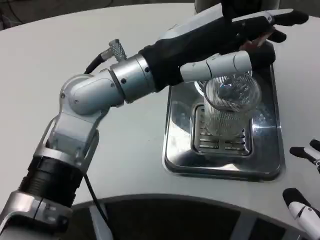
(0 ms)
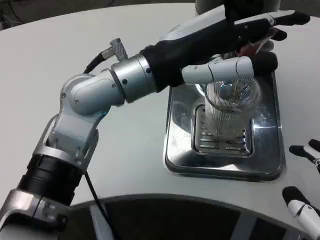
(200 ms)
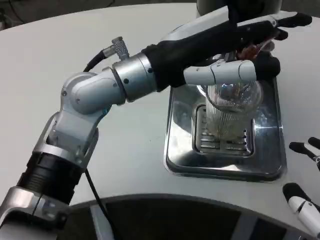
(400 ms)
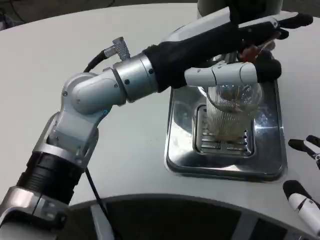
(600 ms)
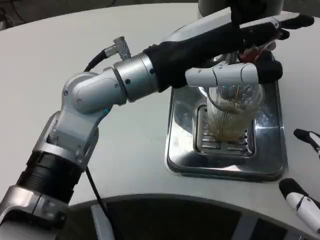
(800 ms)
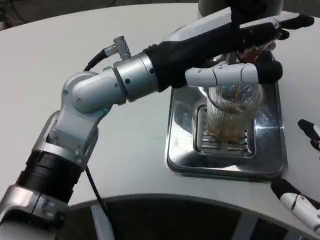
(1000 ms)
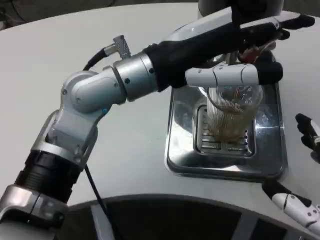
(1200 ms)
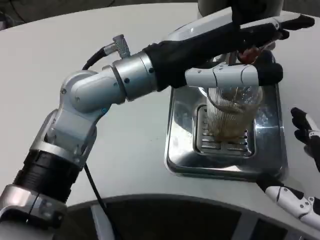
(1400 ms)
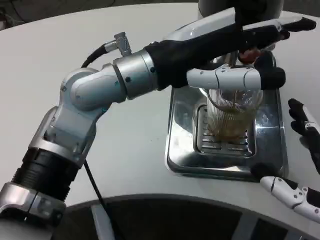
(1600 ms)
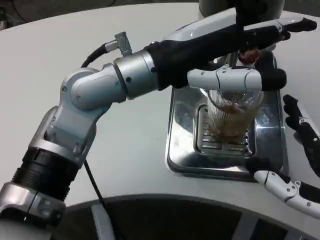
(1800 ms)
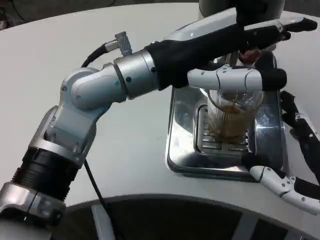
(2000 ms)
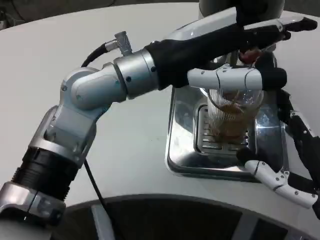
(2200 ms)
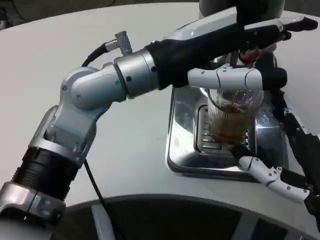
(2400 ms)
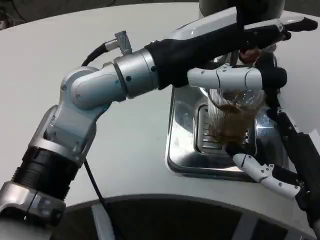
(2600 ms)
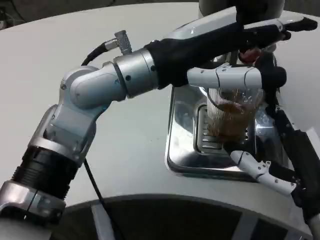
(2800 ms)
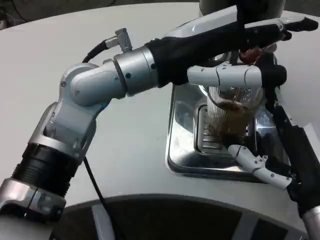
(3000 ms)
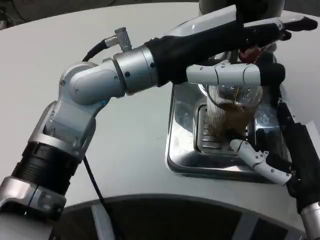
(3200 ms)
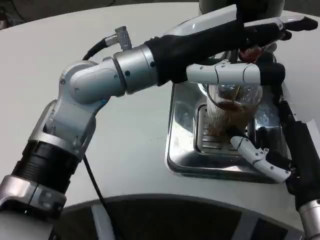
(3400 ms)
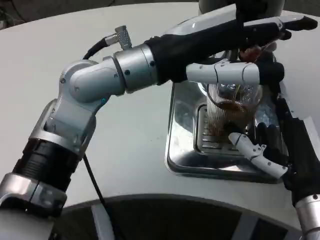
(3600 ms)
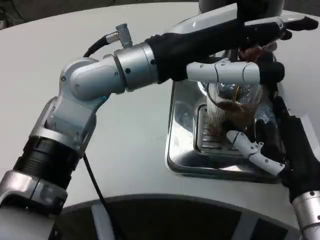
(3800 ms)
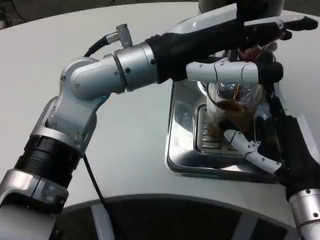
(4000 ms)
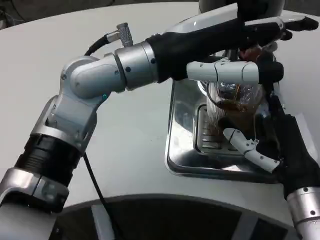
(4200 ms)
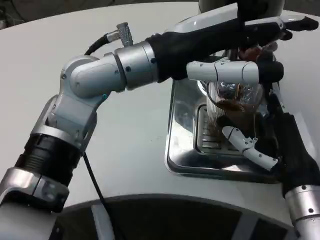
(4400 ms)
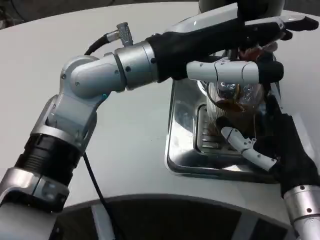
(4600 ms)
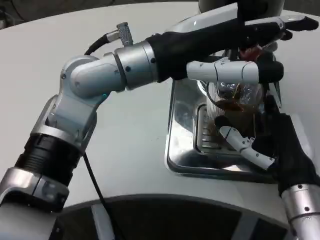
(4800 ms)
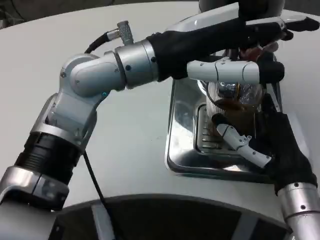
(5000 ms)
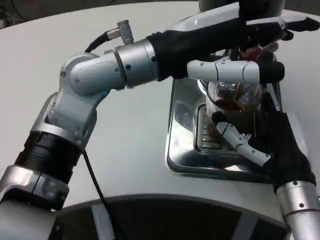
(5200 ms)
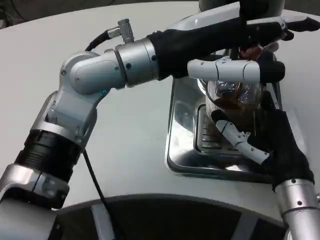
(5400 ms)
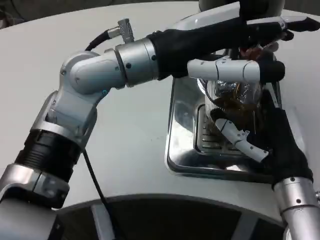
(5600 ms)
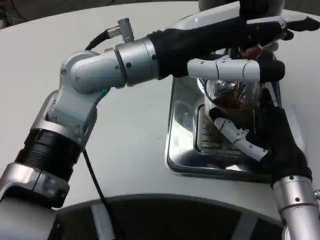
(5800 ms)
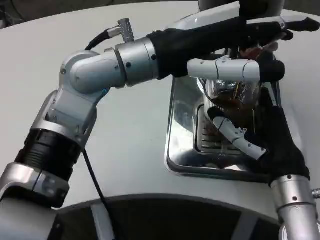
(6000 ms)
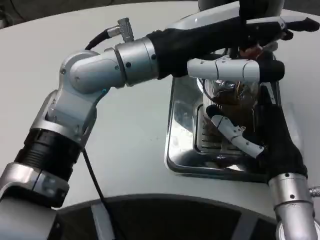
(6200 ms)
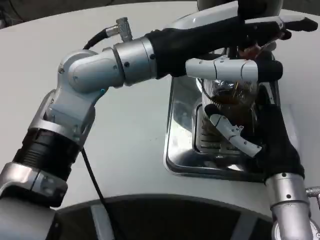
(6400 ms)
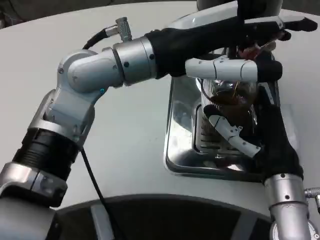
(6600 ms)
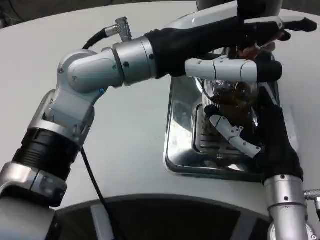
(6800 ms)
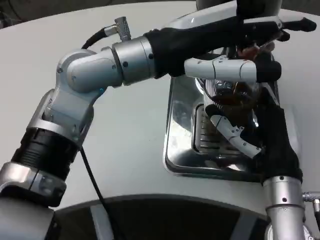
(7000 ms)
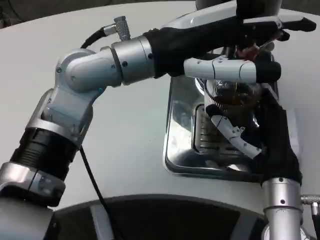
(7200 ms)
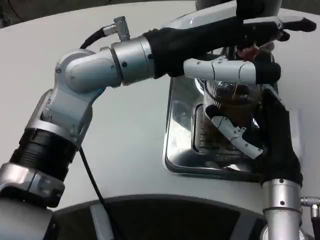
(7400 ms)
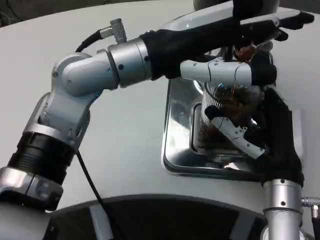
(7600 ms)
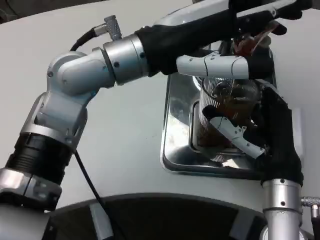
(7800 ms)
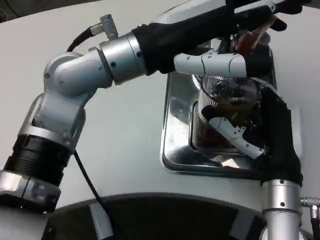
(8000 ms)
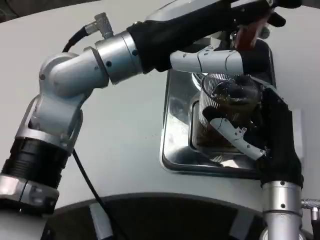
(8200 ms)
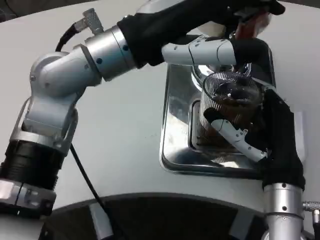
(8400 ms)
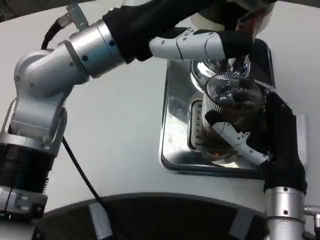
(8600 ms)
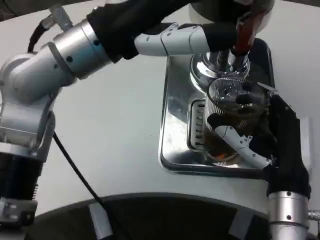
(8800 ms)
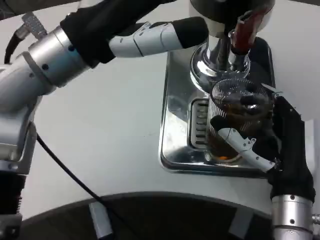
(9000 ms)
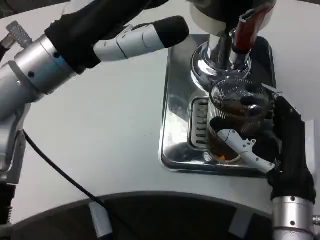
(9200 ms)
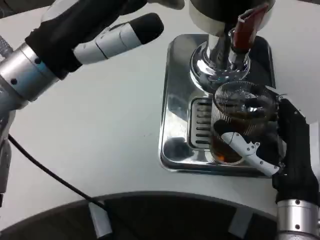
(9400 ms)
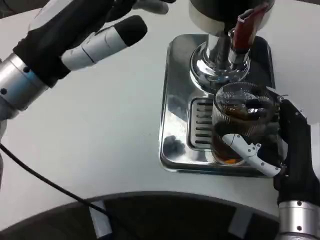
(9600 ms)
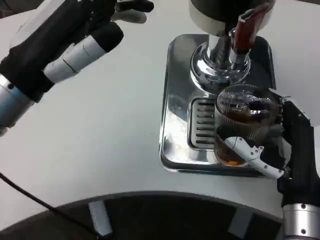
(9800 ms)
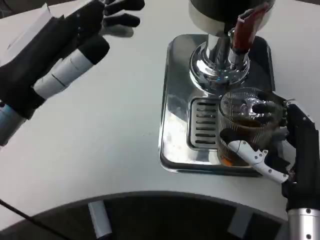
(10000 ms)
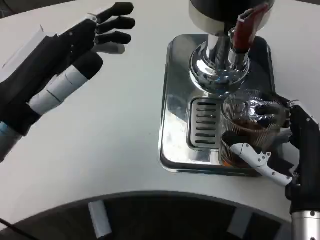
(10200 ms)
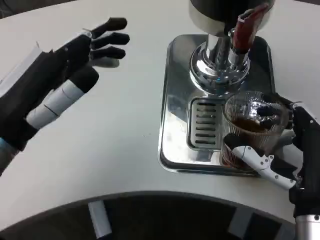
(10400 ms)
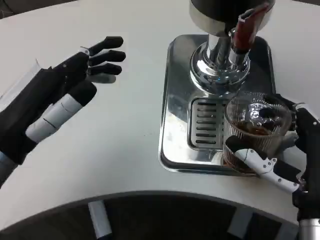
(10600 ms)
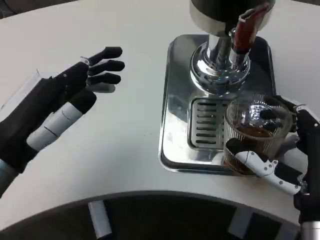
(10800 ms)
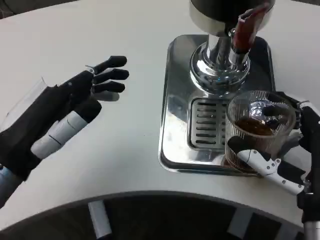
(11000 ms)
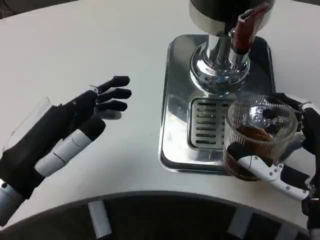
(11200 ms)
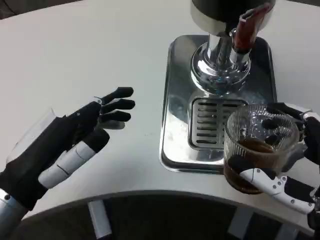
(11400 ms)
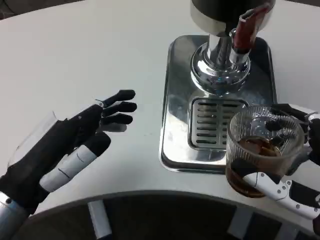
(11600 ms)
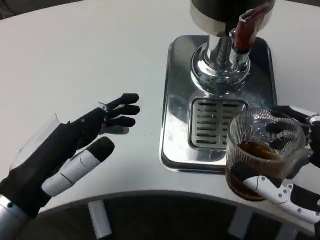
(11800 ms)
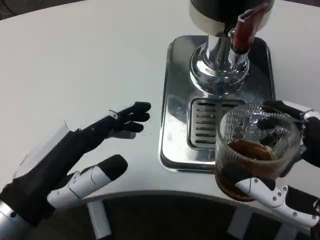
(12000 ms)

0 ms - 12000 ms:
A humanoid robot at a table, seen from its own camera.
Task of the whole recording: Grasp the cup under the faucet to collect the drink, then remove the cup.
0 ms - 1600 ms: The right hand travels forward by some 5 cm.
1600 ms - 3000 ms: The right hand is displaced forward by roughly 5 cm.
4400 ms - 6000 ms: The hands make only small movements.
7600 ms - 9000 ms: The left hand shifts some 5 cm to the left.
9000 ms - 10400 ms: The left hand goes about 15 cm downward, to the left and backward.
10400 ms - 12000 ms: The left hand moves downward and backward, about 5 cm. The right hand goes about 5 cm backward.

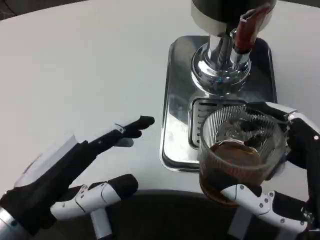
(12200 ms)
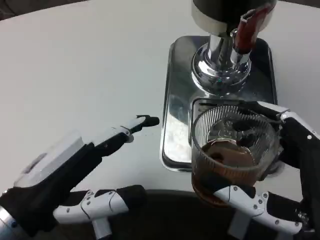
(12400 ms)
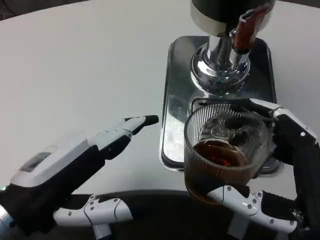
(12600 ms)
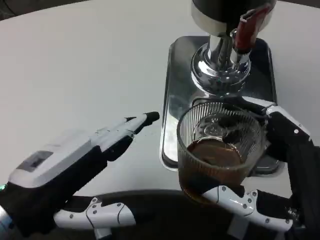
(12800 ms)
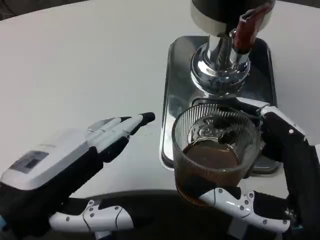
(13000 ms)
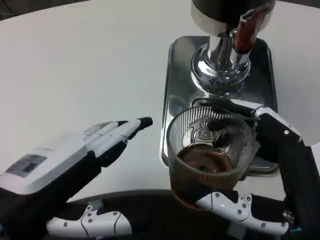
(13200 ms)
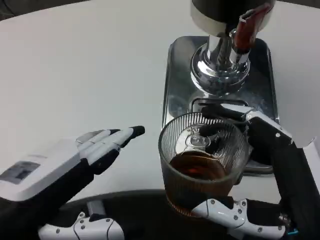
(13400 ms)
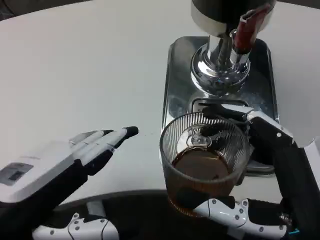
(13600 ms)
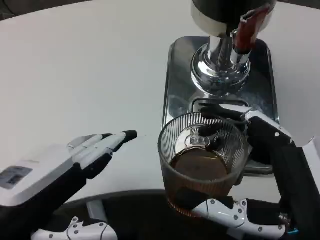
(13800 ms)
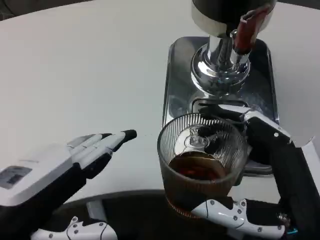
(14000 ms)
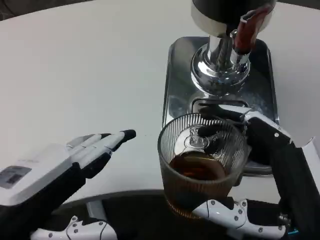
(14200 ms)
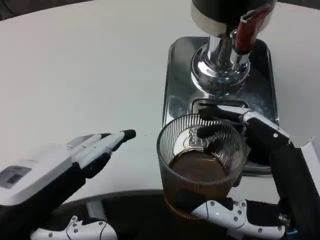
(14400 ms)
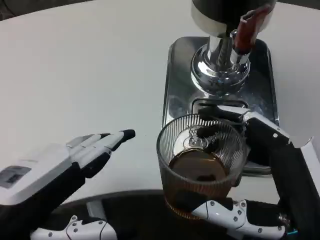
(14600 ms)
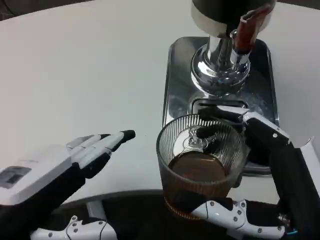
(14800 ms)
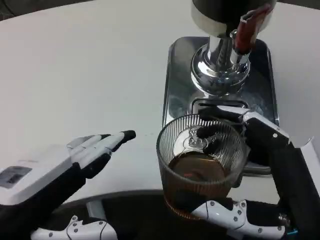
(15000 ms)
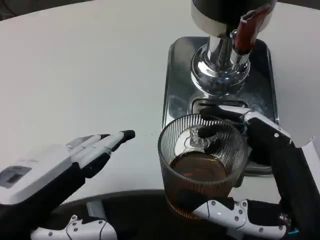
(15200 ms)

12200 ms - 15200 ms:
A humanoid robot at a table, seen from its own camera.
Task of the whole recording: Grasp the cup under the faucet to collect the drink, then remove the cup.
12200 ms - 13800 ms: The left hand ends up roughly 5 cm from where it was.
13800 ms - 15200 ms: Neither hand changes place.

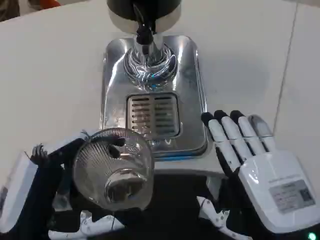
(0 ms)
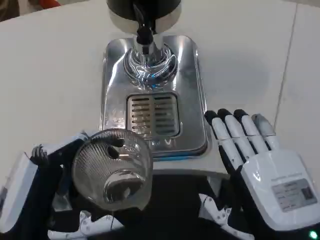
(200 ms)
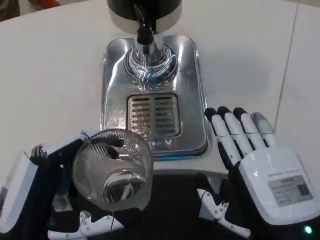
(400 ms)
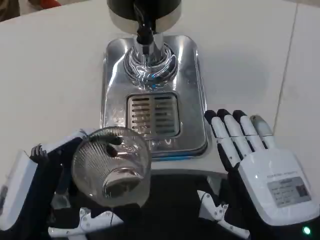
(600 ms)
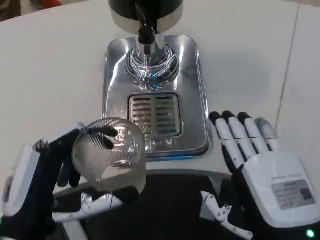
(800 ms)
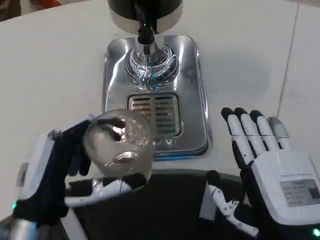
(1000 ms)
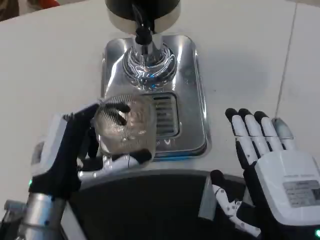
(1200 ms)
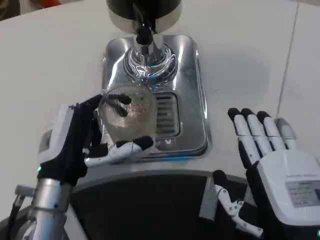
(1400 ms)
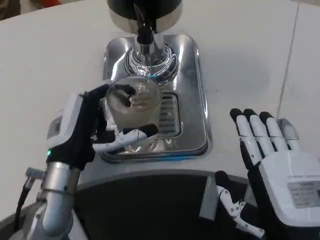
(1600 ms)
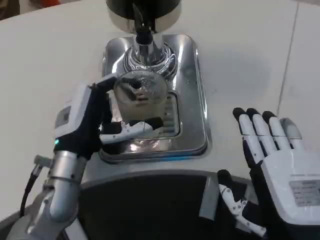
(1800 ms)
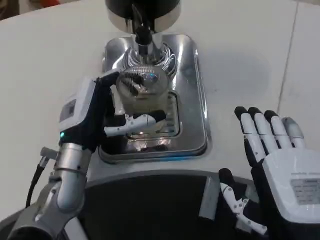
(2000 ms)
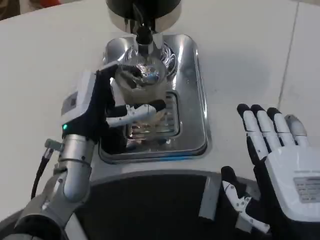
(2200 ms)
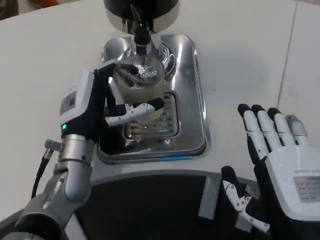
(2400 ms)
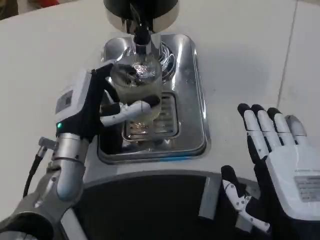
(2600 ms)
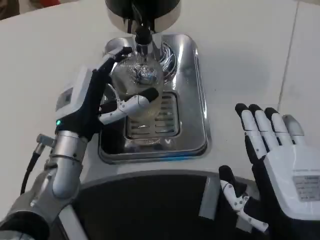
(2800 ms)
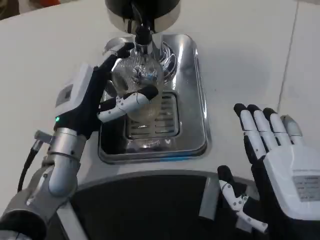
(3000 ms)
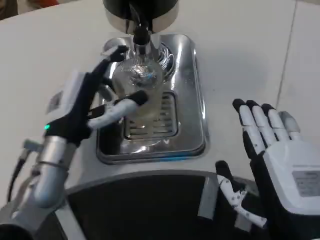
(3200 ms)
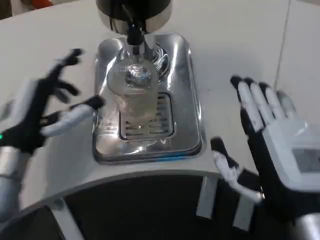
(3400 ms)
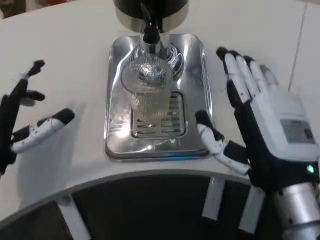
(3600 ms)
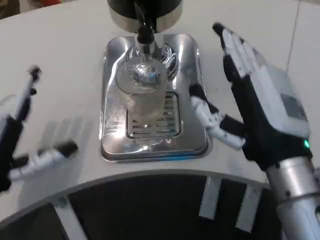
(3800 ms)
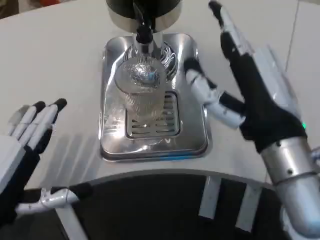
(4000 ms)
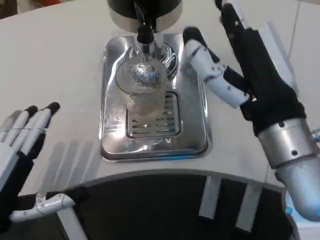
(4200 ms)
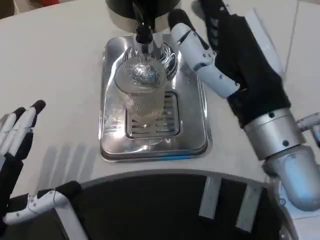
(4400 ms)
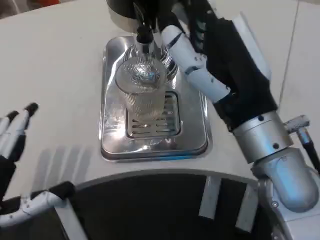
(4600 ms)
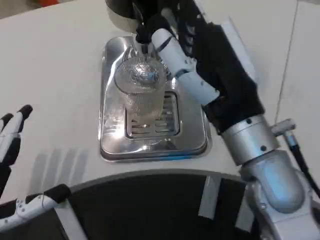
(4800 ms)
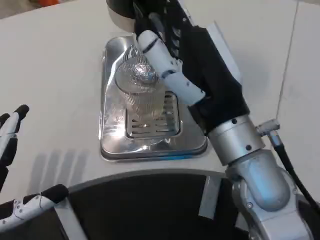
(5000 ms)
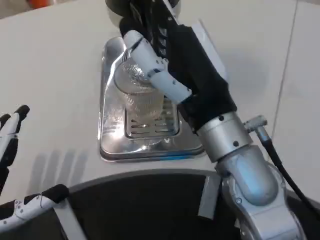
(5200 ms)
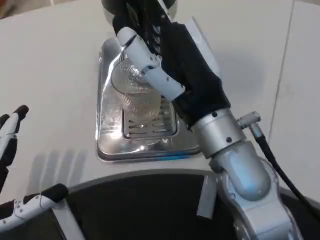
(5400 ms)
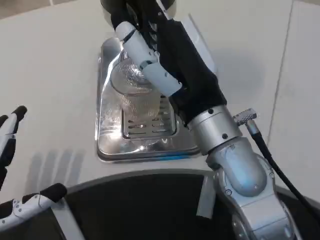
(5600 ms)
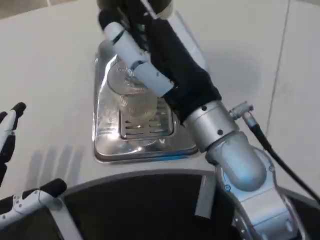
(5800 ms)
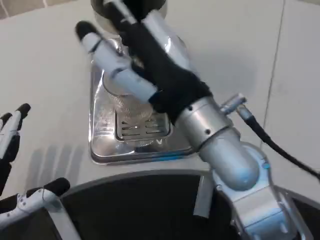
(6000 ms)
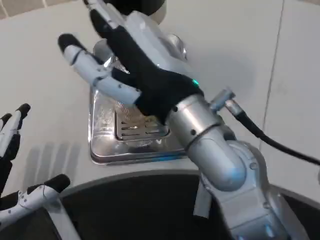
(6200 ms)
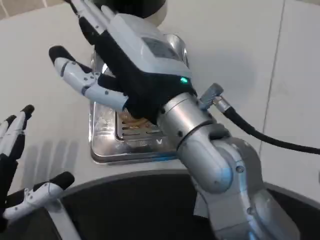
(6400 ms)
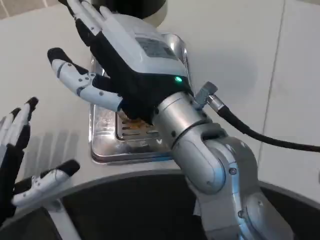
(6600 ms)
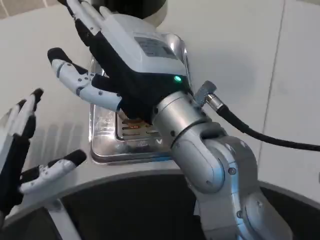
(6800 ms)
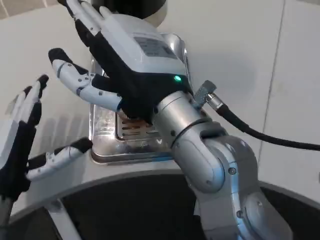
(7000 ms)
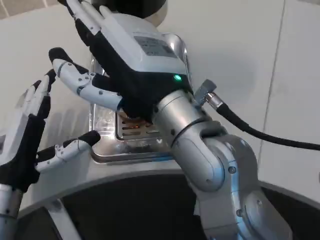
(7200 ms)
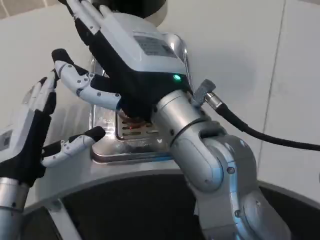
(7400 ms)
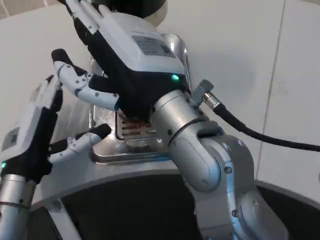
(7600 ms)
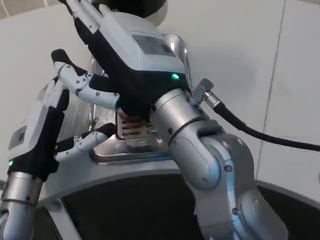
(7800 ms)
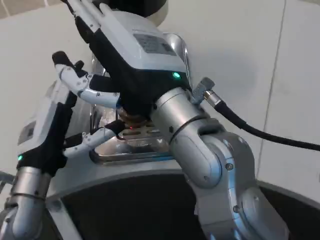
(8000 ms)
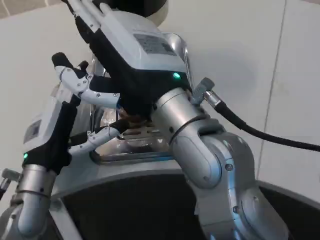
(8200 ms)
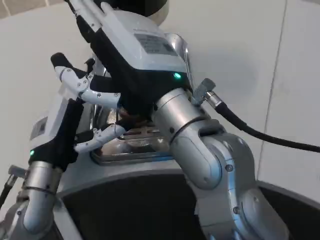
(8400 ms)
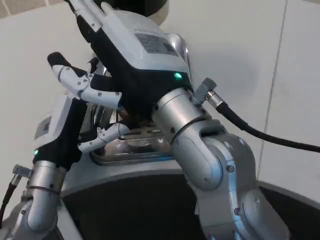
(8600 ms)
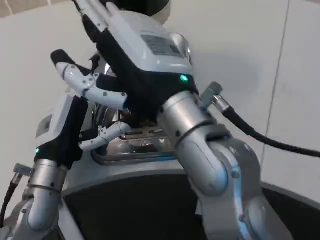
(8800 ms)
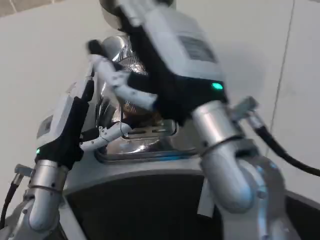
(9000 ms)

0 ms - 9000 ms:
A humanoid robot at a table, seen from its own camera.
Task of the whole recording: Grasp the cup under the faucet to collect the drink, then remove the cup.
0 ms - 1600 ms: The left hand goes some 15 cm forward.
3000 ms - 4400 ms: The right hand shifts approximately 15 cm upward and forward. Meanwhile the left hand moves backward and to the left, some 20 cm.
4400 ms - 6000 ms: The right hand goes some 5 cm to the left.
6000 ms - 7600 ms: The left hand shifts roughly 10 cm forward.
